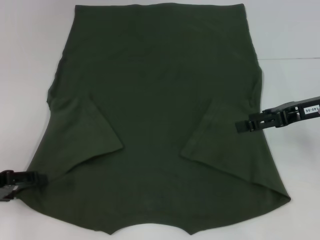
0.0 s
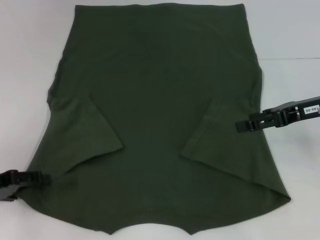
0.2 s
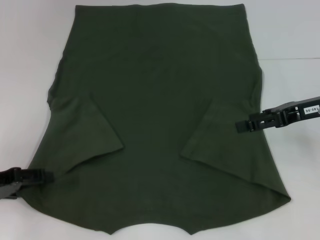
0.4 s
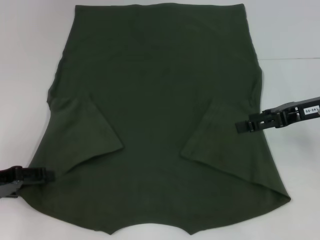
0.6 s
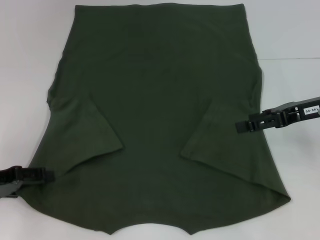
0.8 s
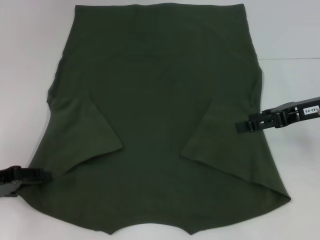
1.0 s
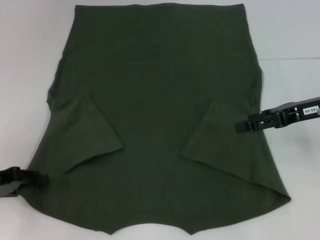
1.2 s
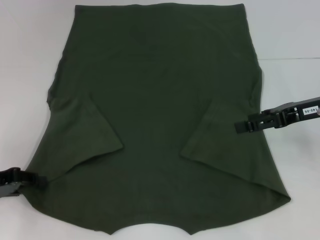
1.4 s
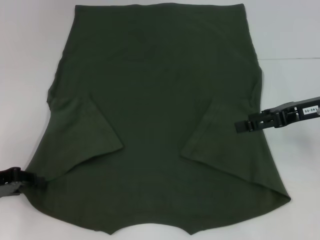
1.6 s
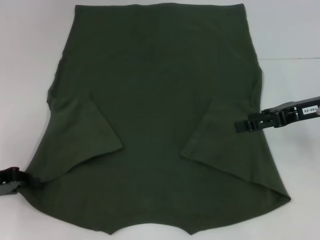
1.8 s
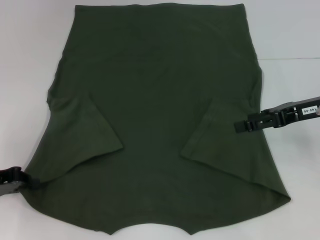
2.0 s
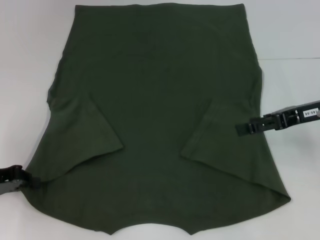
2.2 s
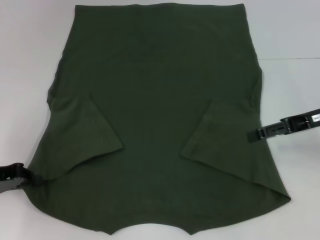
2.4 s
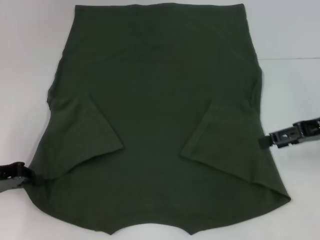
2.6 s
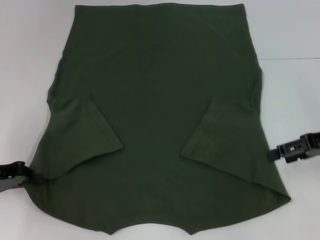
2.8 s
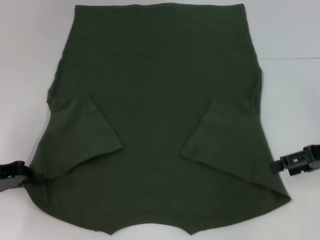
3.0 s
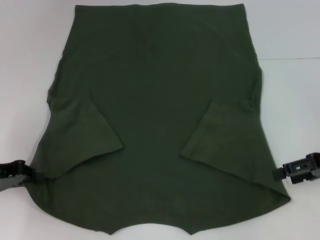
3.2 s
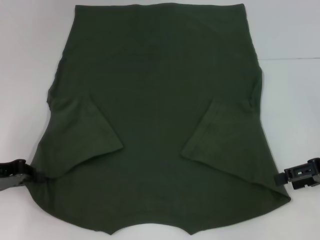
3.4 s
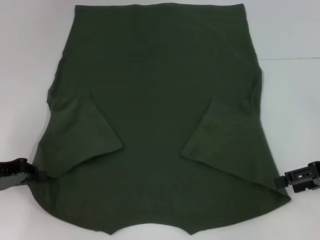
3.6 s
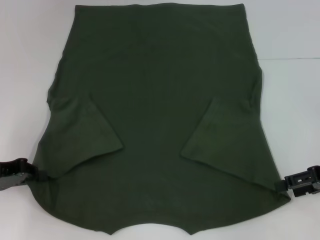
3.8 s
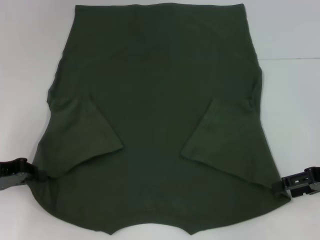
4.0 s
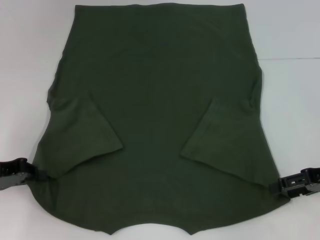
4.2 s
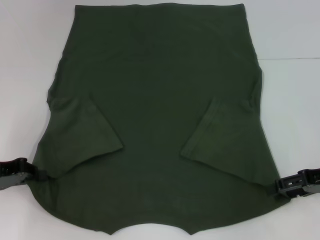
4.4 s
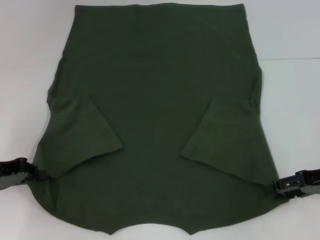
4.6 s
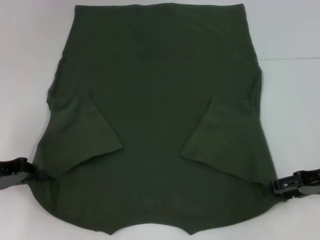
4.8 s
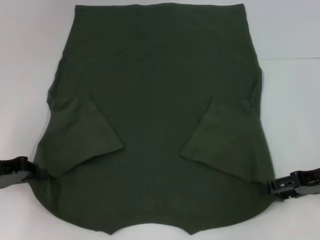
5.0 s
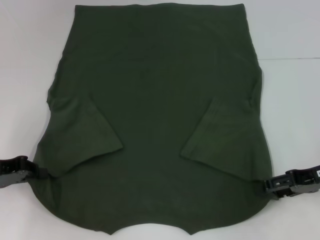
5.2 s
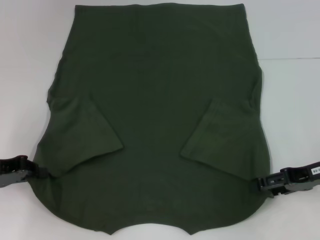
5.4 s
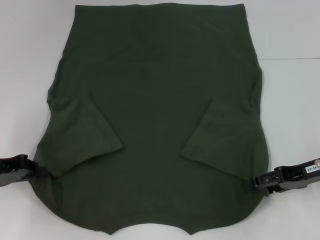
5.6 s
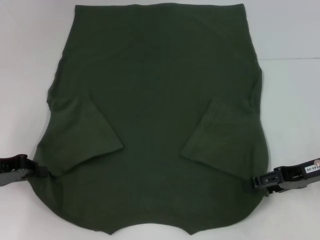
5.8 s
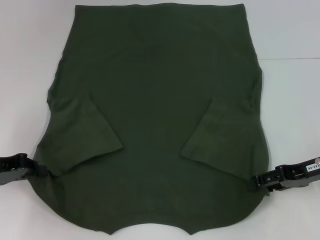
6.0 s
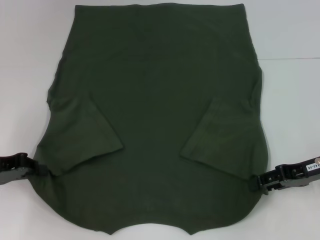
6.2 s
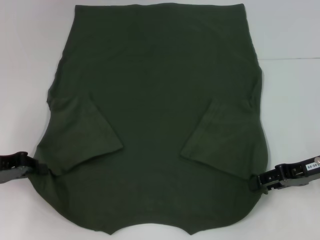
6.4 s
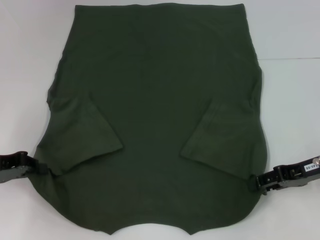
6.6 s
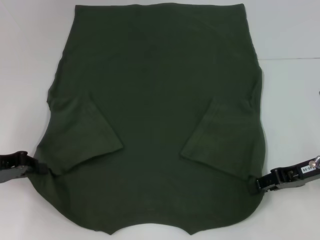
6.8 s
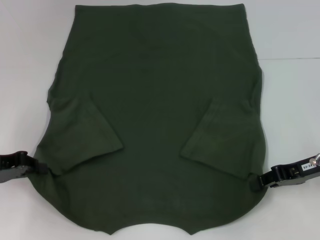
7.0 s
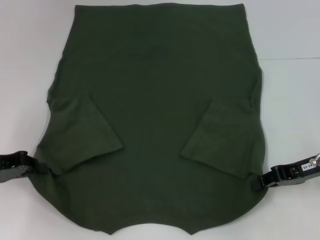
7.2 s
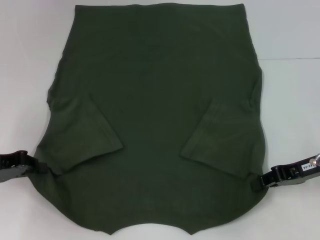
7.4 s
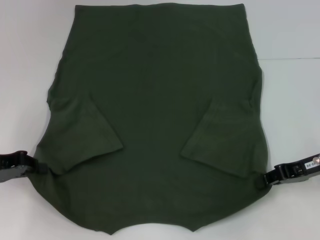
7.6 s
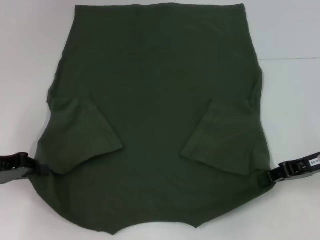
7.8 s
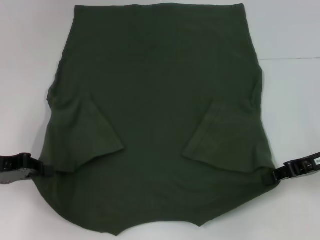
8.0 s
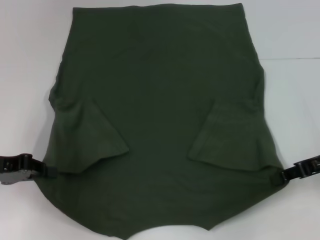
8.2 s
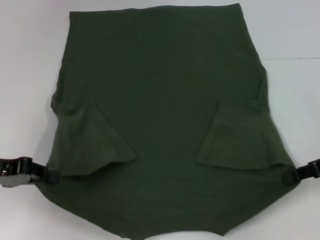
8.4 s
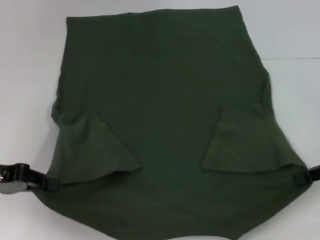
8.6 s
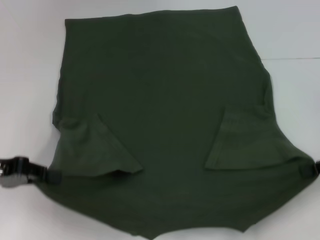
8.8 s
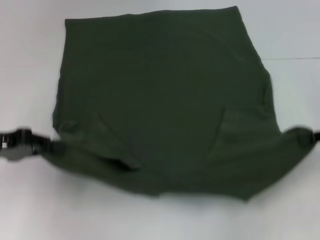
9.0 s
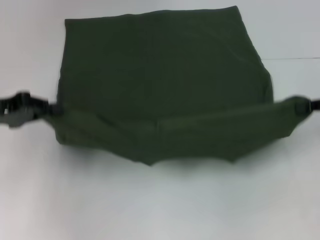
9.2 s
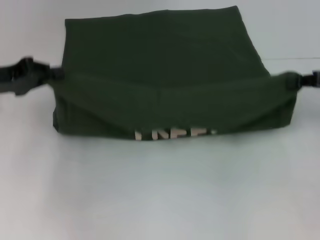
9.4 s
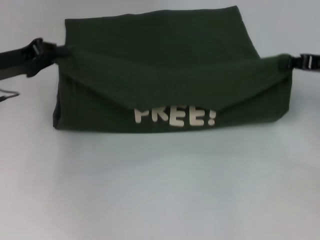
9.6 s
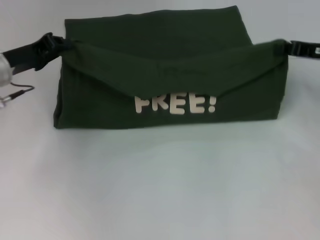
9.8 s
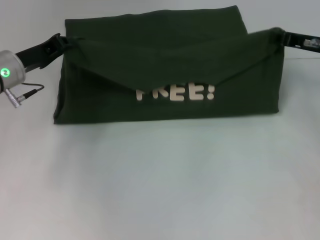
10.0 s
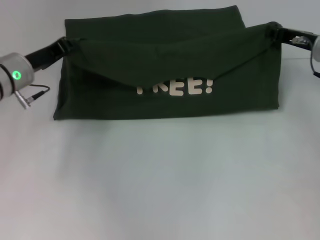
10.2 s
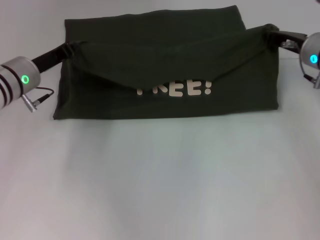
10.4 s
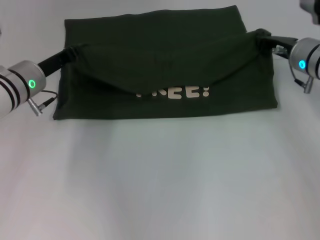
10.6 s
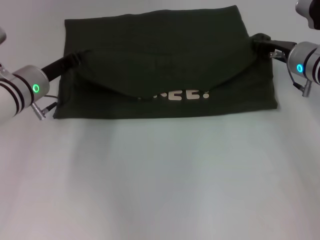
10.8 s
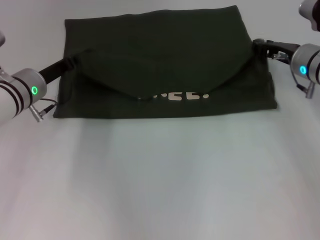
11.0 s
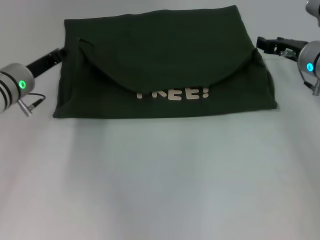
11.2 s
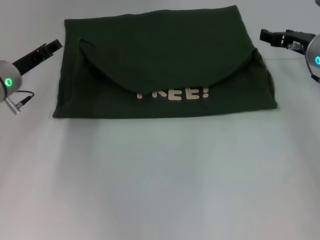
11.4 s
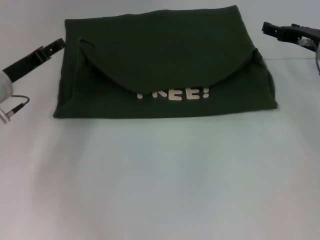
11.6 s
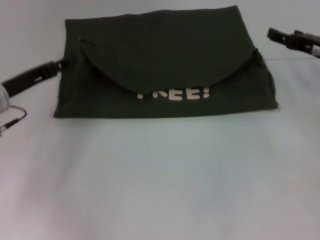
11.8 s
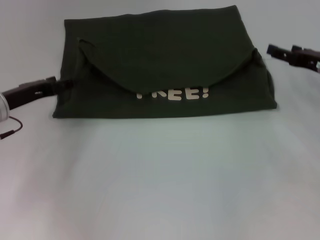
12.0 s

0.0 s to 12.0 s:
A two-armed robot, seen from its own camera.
Step, 2.0 to 4.4 s: Grab the bottom right corner with your right hand.
Step, 4.6 to 11.0 s: Fold the clothes with your left hand.
Step, 4.6 to 11.0 s: Fold the clothes with your right hand.
0.0 to 1.6 s: The left gripper closes up.
1.6 to 3.0 s: The left gripper closes. The right gripper changes place by roughly 5 cm.
3.0 to 6.0 s: The grippers make only small movements.
6.0 to 7.6 s: The right gripper closes its fingers.
7.6 to 9.0 s: The right gripper is displaced to the right and upward by approximately 10 cm.
9.0 to 10.4 s: The left gripper shifts approximately 15 cm forward and to the right; the right gripper shifts about 15 cm forward and to the left.
10.4 to 12.0 s: The left gripper moves backward, approximately 5 cm, and opens its fingers. Meanwhile the right gripper shifts some 10 cm to the right and backward, and opens its fingers.

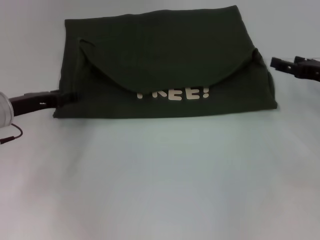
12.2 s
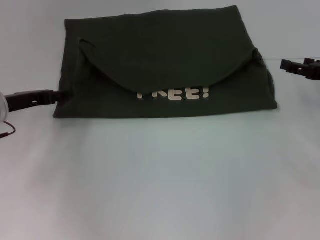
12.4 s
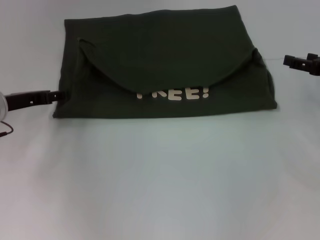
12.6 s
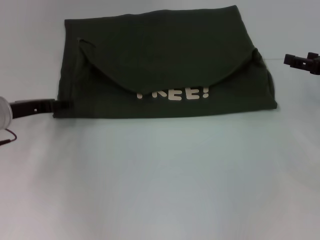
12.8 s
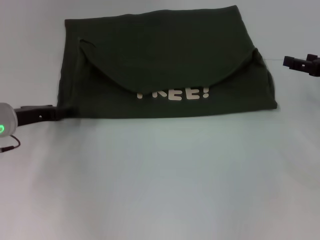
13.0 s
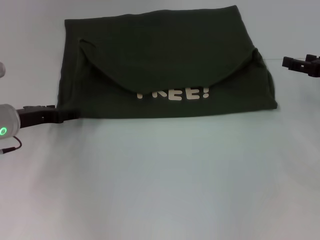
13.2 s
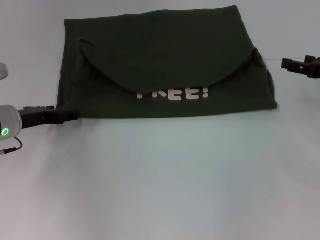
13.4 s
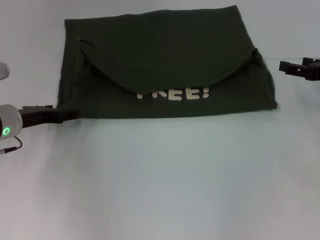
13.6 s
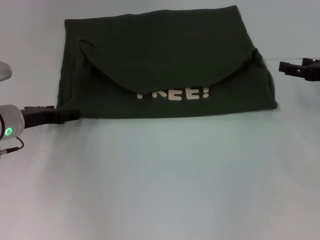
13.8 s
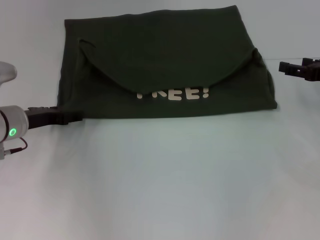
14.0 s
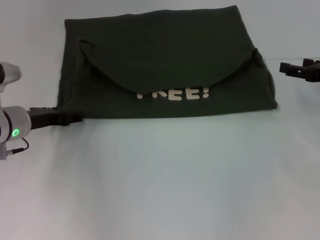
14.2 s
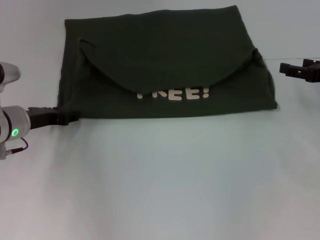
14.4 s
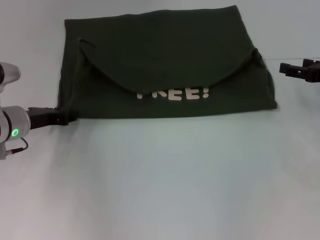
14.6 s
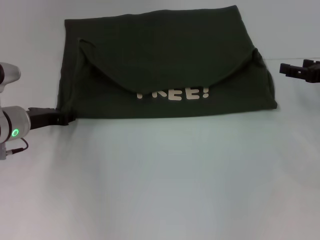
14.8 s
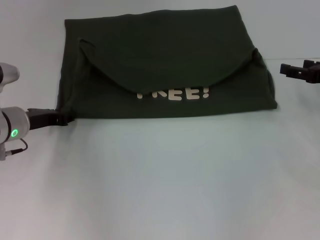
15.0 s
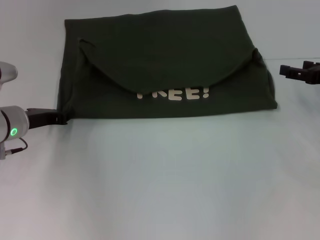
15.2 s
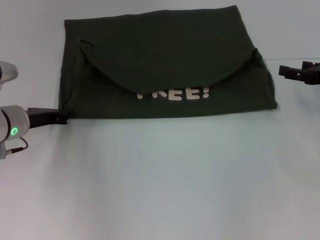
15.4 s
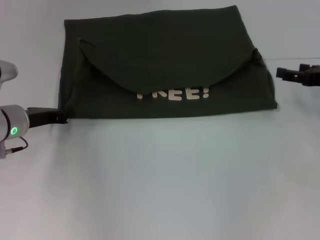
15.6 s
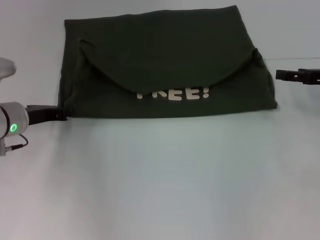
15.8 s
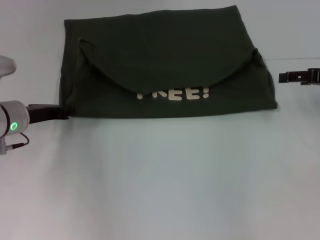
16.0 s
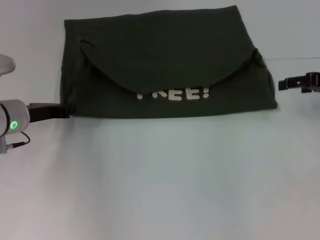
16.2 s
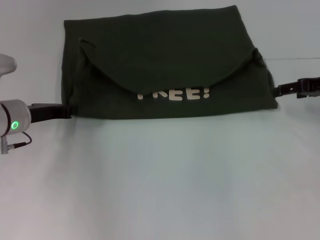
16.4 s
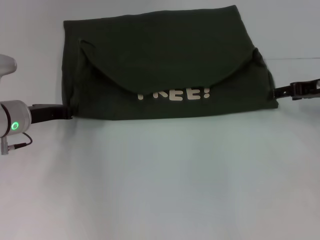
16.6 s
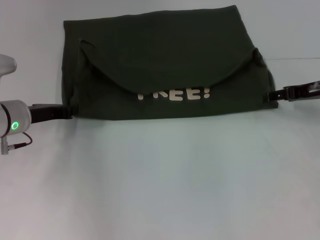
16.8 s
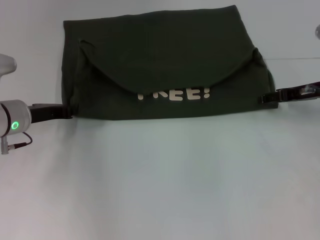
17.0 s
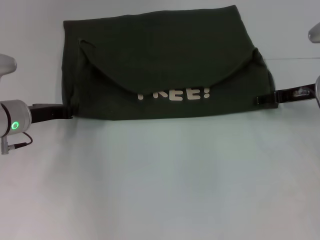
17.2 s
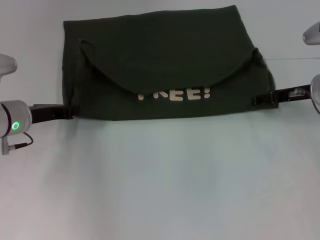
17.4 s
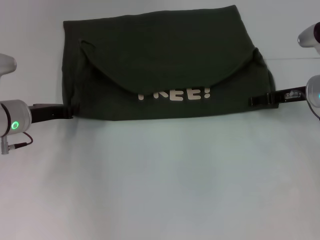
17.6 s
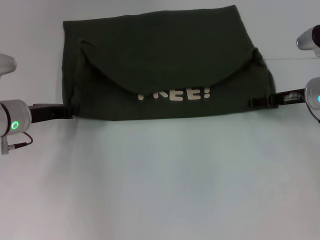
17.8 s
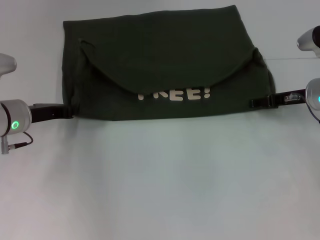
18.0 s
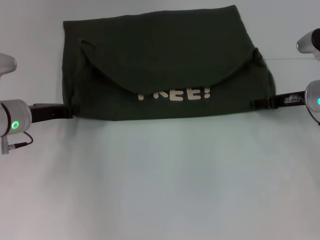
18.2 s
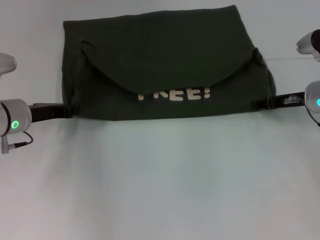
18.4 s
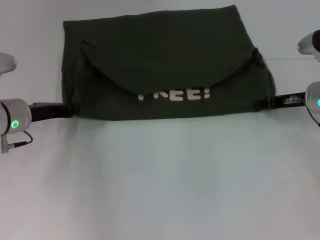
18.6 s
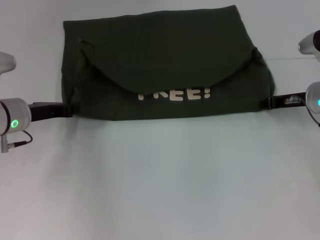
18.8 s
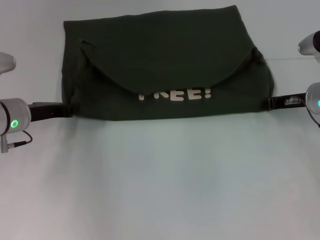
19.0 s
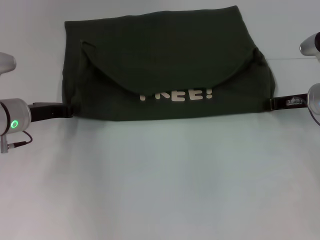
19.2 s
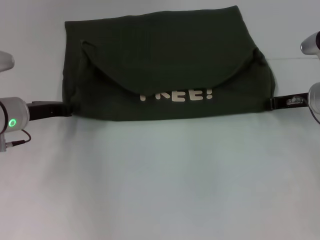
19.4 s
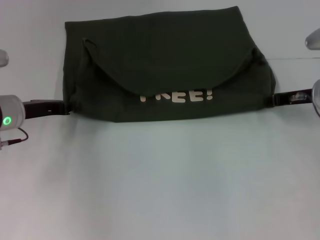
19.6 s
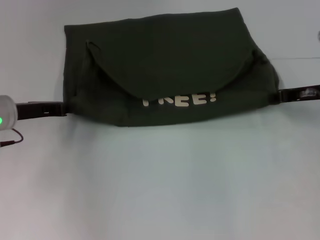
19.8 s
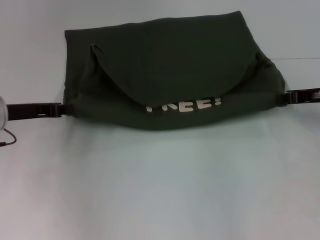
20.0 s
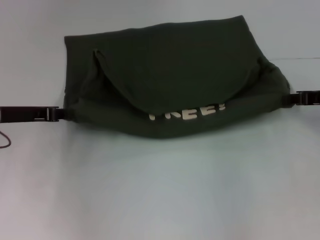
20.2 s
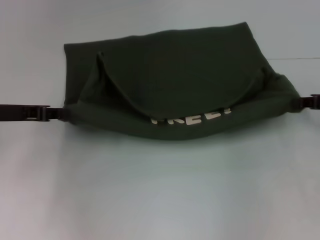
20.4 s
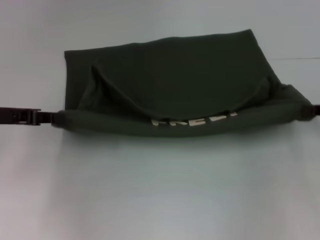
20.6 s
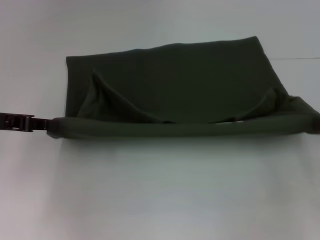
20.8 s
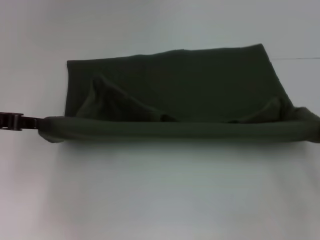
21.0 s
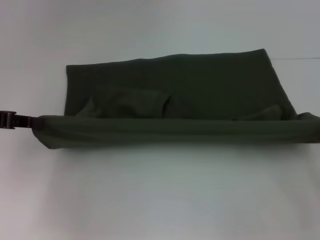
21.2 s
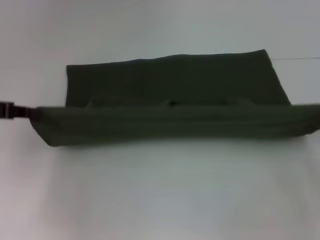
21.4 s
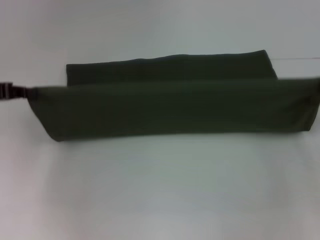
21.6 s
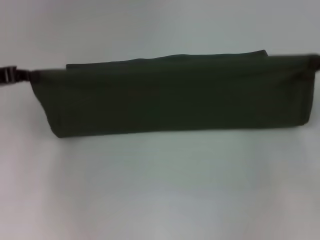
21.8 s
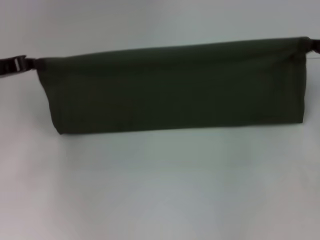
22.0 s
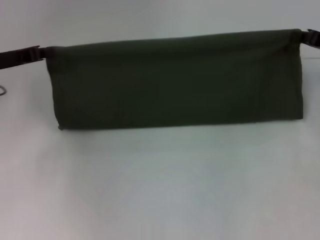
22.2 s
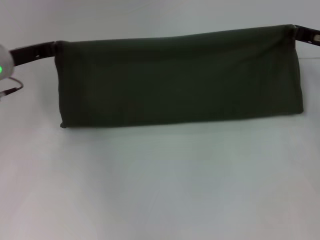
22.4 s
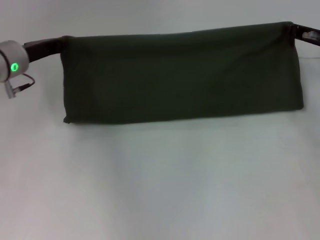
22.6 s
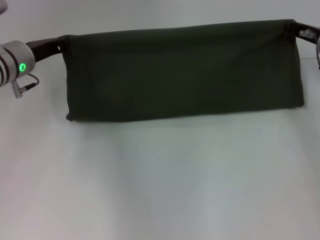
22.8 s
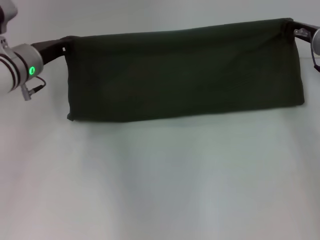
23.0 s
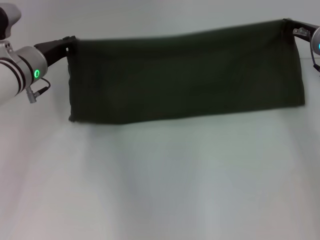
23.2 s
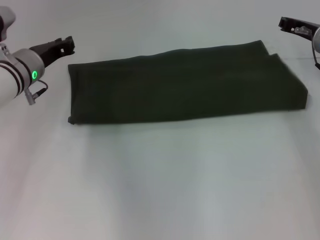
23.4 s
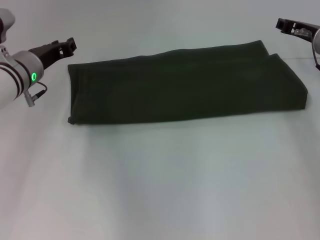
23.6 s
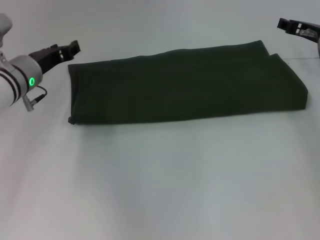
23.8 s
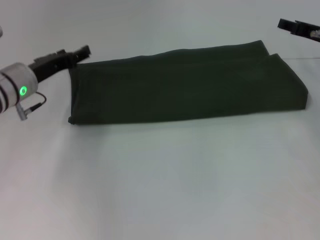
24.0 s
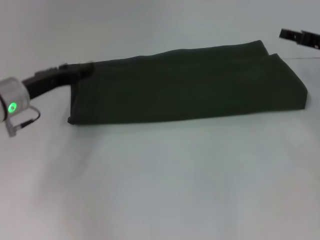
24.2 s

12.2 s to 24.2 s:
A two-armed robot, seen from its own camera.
Step, 12.2 to 20.8 s: Pull the clothes with your left hand.
Step, 12.2 to 20.8 s: Pull the clothes with your right hand.
Step, 21.0 to 23.2 s: Fold the clothes with your left hand.
Step, 21.0 to 23.2 s: Fold the clothes with your right hand.
12.2 to 13.8 s: There are only small adjustments of the grippers.
13.8 to 15.2 s: The left gripper closes.
16.6 to 18.2 s: The right gripper ends up approximately 5 cm from where it was.
18.2 to 19.8 s: The right gripper closes.
19.8 to 21.2 s: The left gripper heads upward and to the left, covering about 10 cm, while the right gripper shifts about 20 cm backward and to the right.
21.2 to 22.6 s: The right gripper travels forward and to the left by some 20 cm. The left gripper goes about 15 cm forward and to the right.
22.6 to 24.2 s: The right gripper opens its fingers. The left gripper changes place by roughly 5 cm, and opens up.
